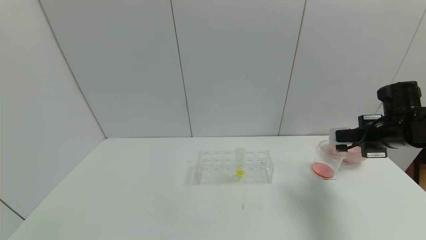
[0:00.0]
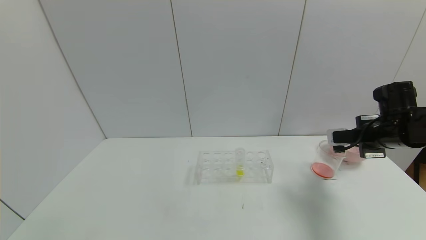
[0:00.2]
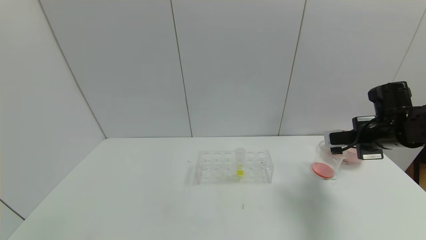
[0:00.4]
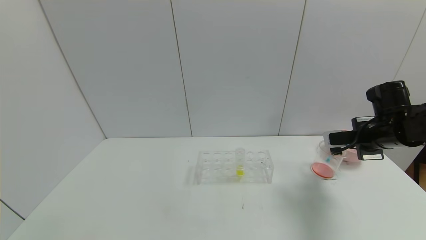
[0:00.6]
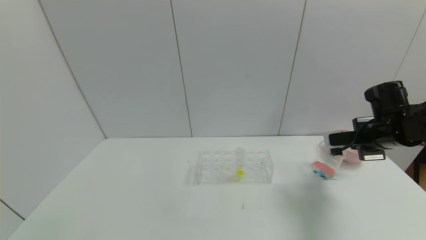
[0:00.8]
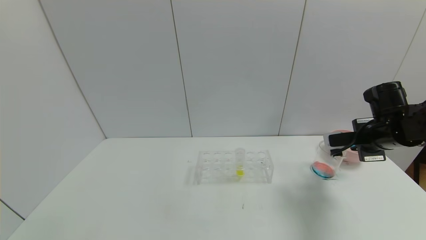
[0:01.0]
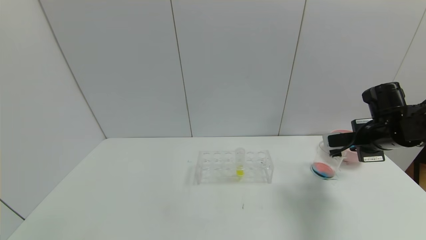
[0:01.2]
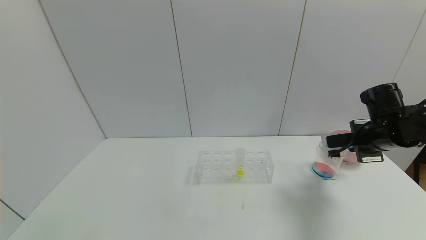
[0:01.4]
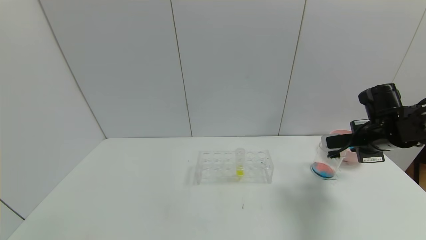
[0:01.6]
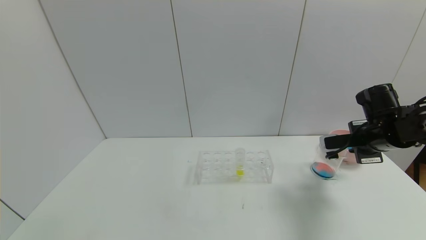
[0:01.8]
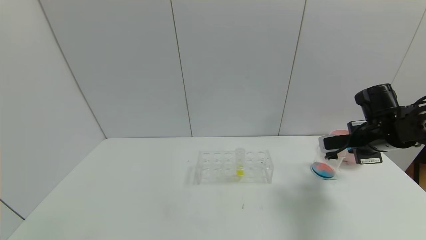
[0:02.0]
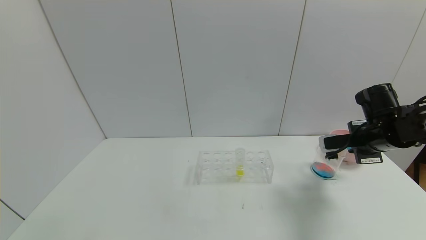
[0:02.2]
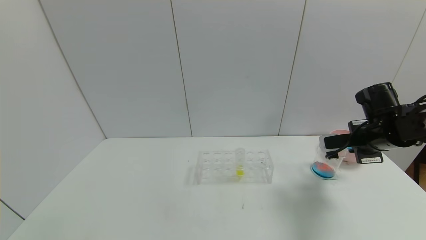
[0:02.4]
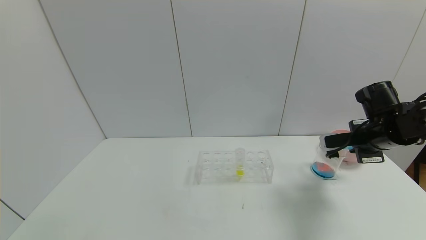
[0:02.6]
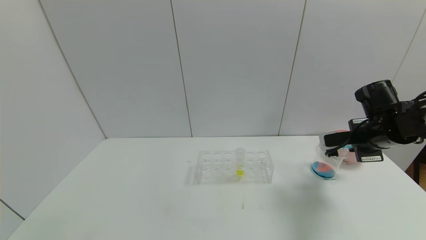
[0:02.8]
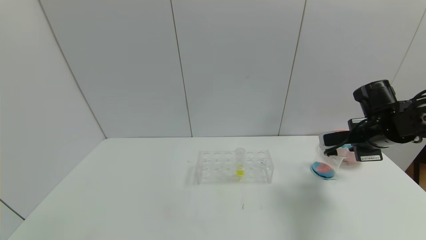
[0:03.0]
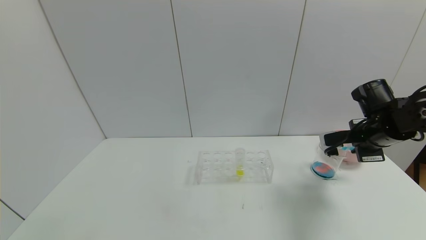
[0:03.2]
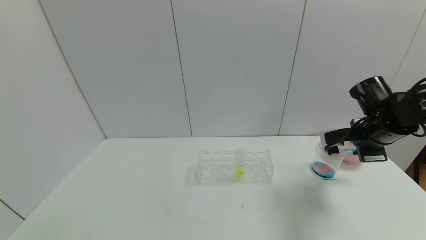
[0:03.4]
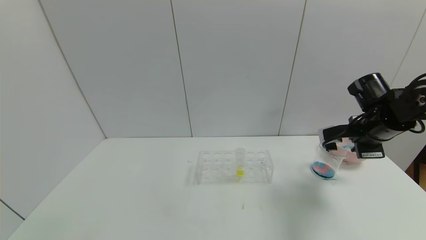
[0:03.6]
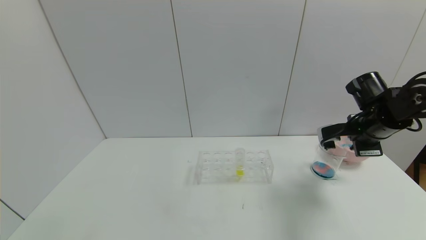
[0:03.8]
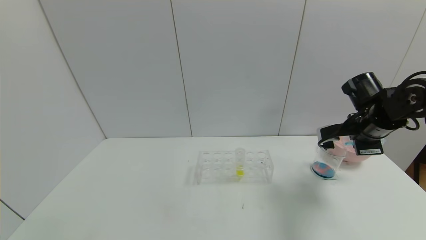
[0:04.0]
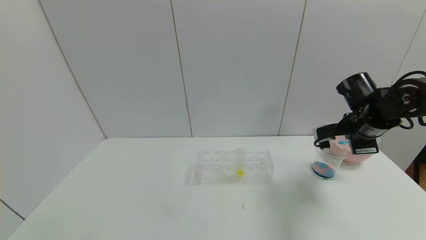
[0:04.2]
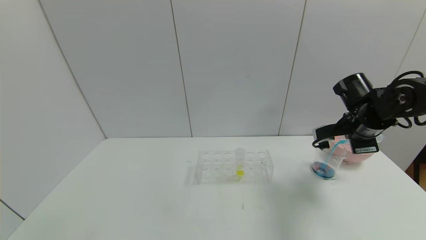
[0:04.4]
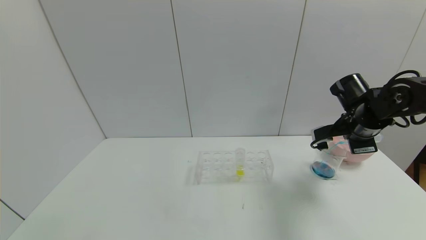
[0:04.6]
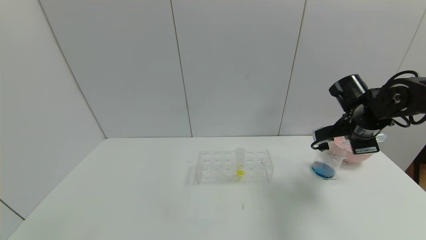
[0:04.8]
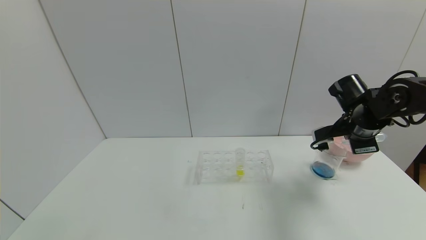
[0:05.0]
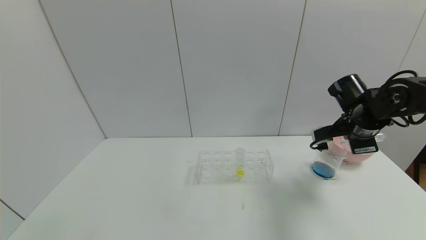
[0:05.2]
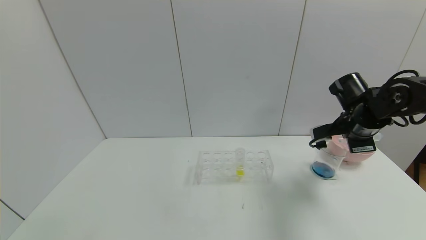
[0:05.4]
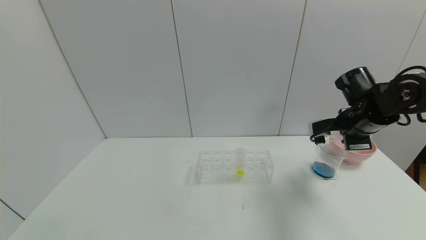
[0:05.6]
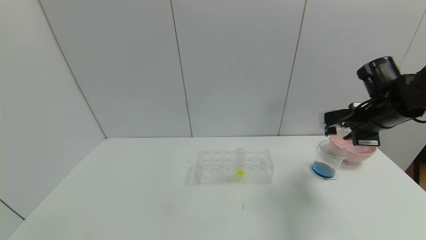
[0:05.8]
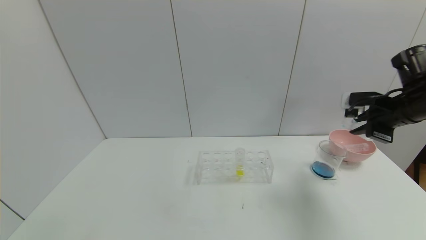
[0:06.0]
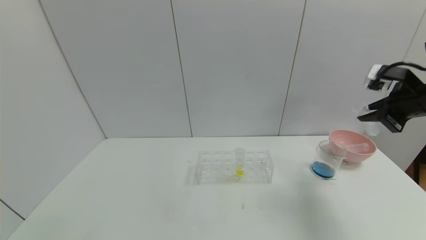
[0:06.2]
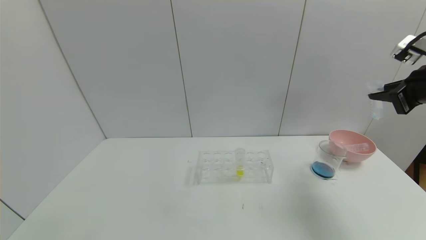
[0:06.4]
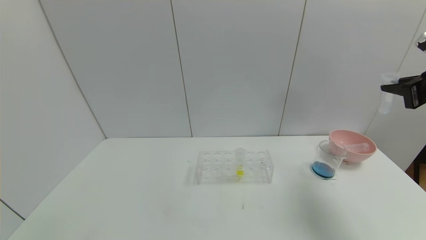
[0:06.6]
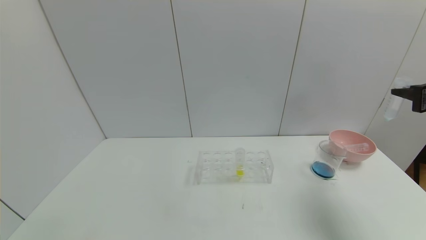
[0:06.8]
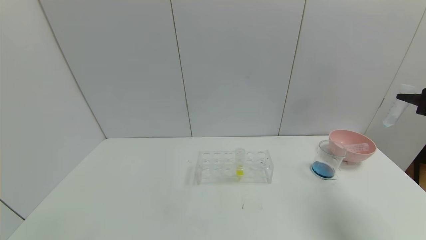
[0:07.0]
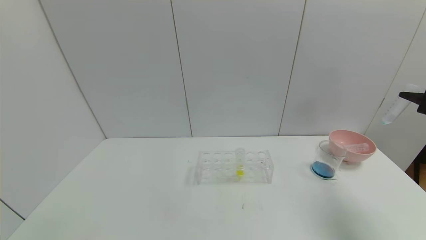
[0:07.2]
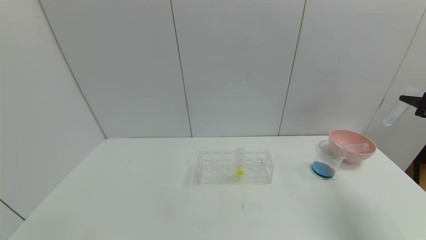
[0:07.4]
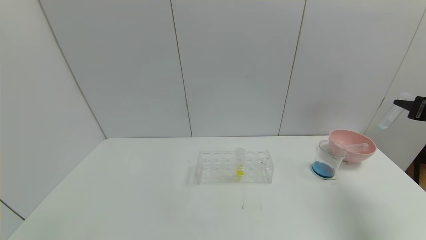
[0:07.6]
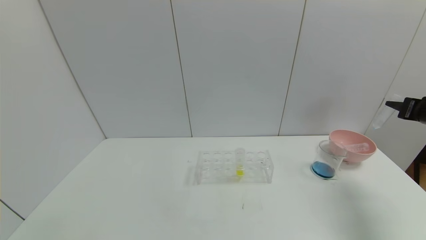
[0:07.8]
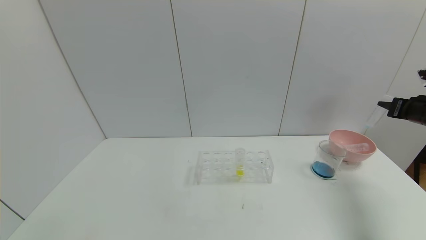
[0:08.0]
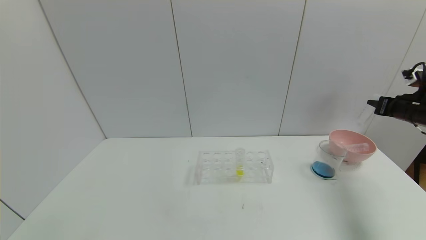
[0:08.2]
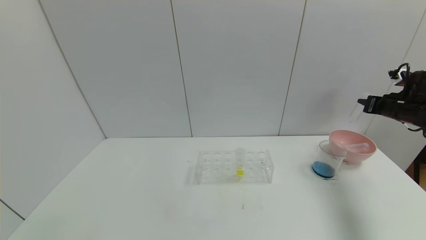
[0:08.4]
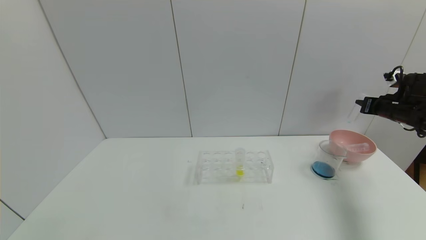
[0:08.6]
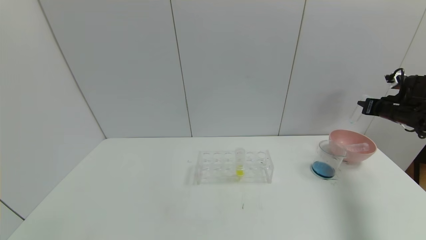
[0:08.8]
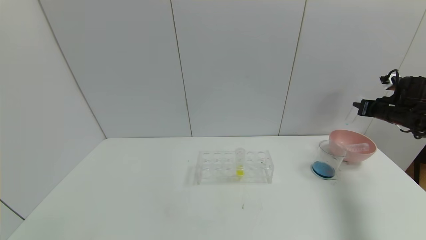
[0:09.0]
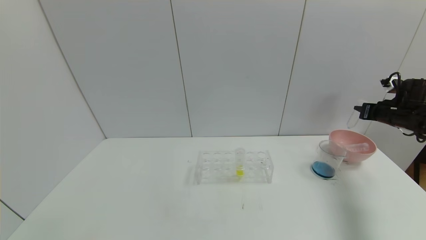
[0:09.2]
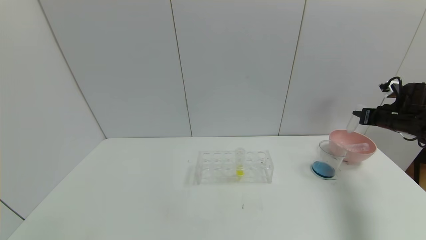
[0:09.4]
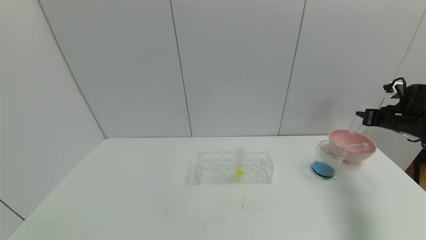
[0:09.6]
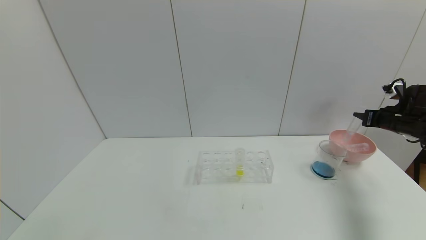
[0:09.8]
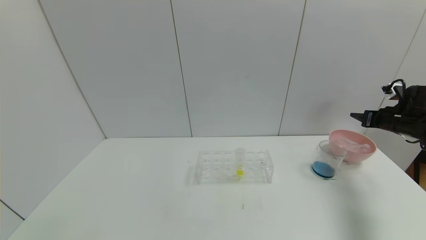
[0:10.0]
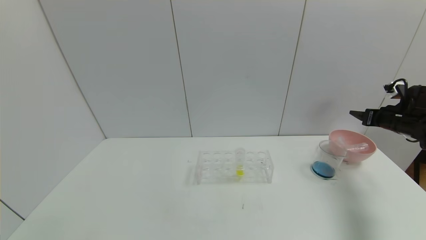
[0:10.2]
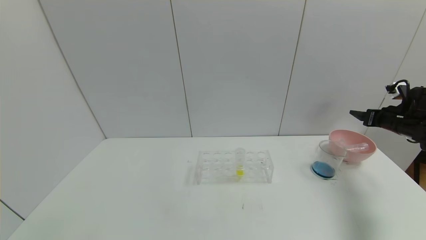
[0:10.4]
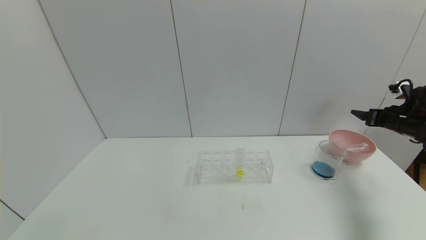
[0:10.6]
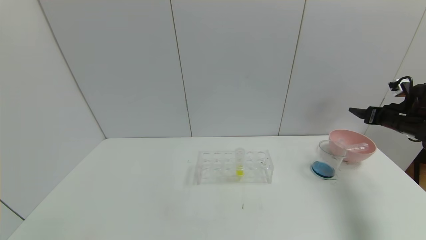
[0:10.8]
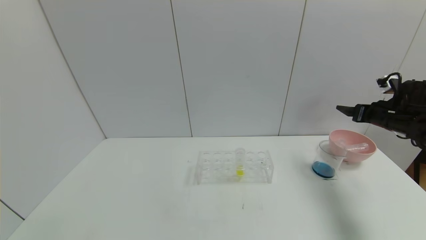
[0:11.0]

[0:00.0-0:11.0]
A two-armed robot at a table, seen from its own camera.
Task of the whole recording: pick up the test tube with red pigment and the test tube with blue pigment by grippers and pour them into the container.
Step, 0:00.0 to 0:05.8: Pour the blue reagent into the graduated cylinder with the right gripper.
Step, 0:06.0 to 0:10.2: Place the test tube into the bowl with the right gripper.
0:00.0 to 0:03.2: The grippers stay close to where they were, moving slightly.
0:03.2 to 0:04.8: The grippers stay close to where they were, moving slightly.
0:04.8 to 0:06.2: The right gripper heads upward, to the right and backward, covering approximately 10 cm.
0:06.2 to 0:07.8: The right gripper shifts some 10 cm to the right and downward.
0:07.8 to 0:09.4: The right gripper travels forward and downward by some 10 cm.
0:09.4 to 0:11.0: The right gripper opens its fingers.

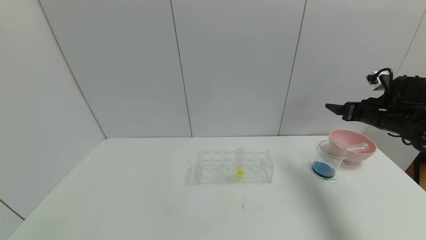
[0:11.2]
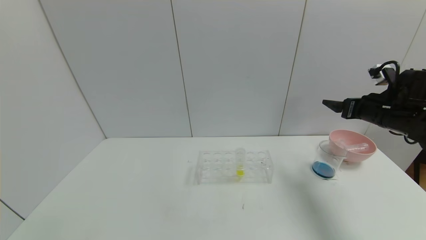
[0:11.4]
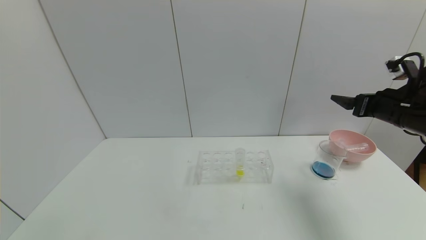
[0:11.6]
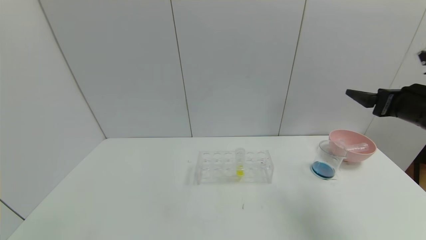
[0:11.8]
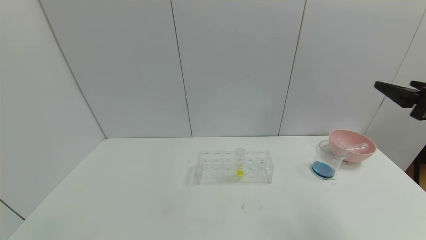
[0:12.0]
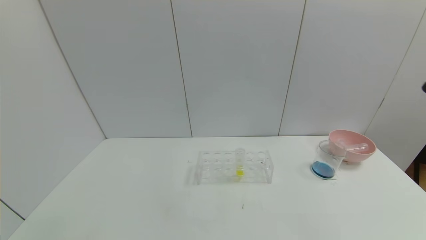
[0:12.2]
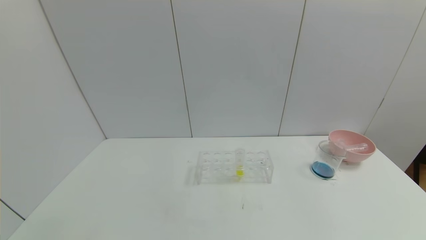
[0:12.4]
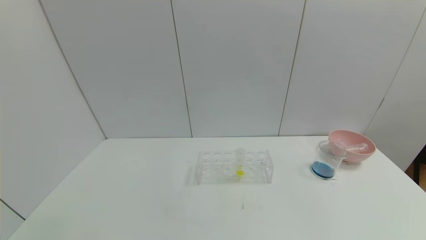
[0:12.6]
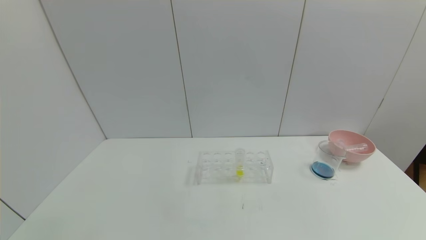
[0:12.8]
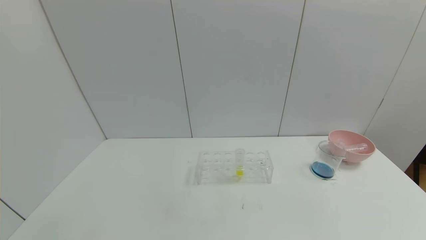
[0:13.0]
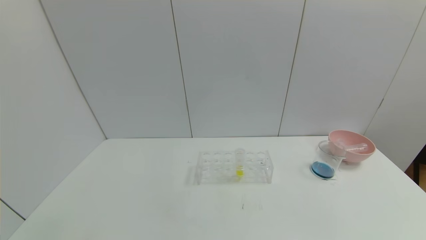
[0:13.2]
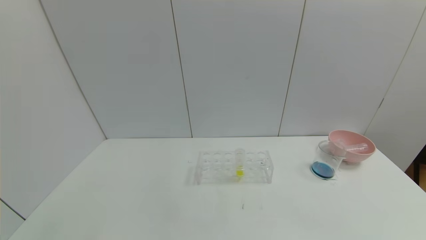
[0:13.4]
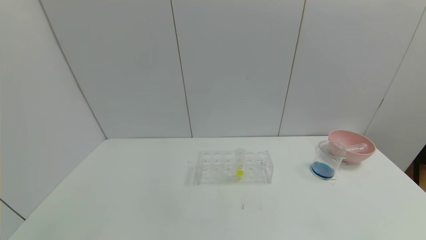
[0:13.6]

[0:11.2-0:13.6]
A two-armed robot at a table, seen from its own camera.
Task of the whole recording: pick up the test tube with red pigment and the test tube with blue pigment by grippers and pour them into the container.
0:11.2 to 0:12.4: The right gripper travels backward by approximately 30 cm.

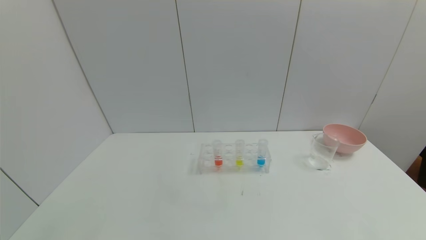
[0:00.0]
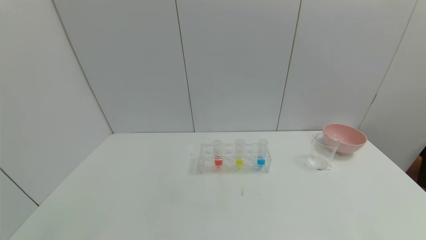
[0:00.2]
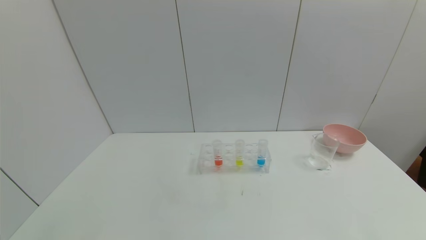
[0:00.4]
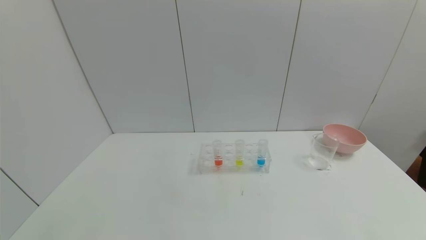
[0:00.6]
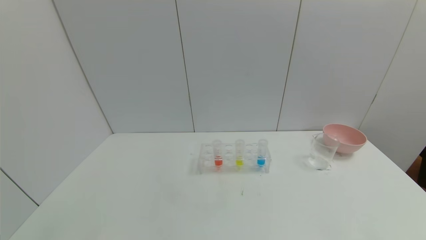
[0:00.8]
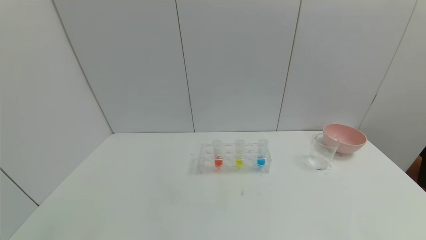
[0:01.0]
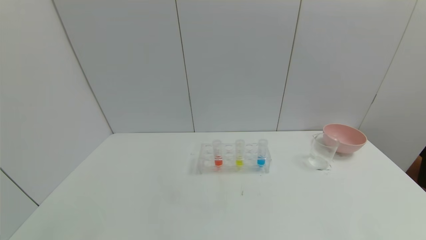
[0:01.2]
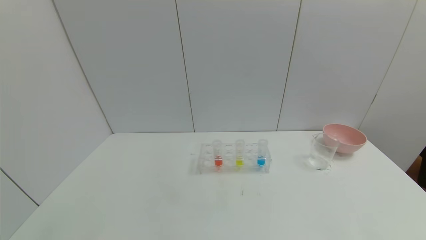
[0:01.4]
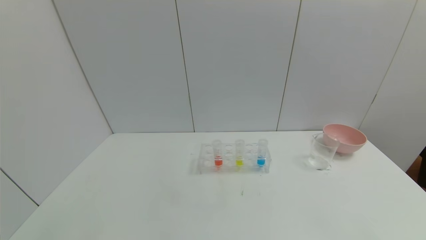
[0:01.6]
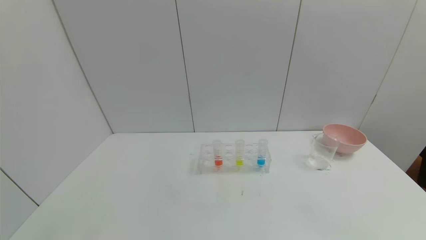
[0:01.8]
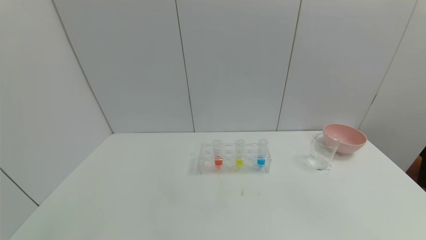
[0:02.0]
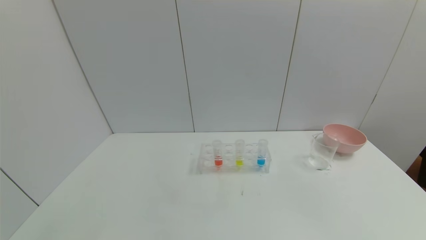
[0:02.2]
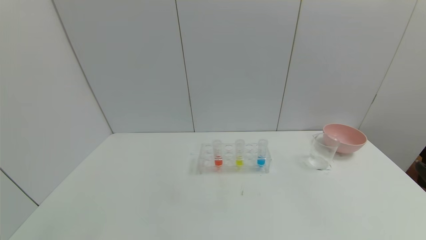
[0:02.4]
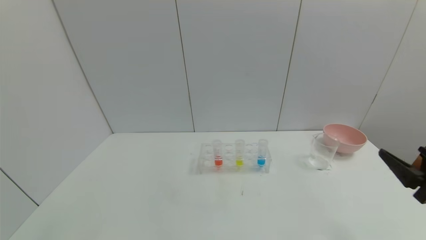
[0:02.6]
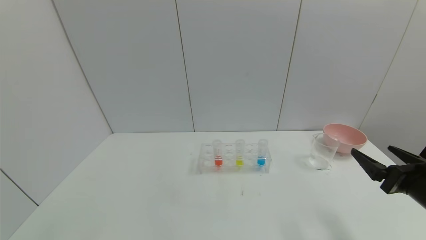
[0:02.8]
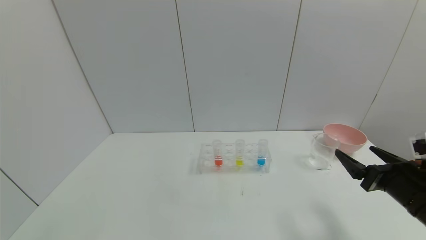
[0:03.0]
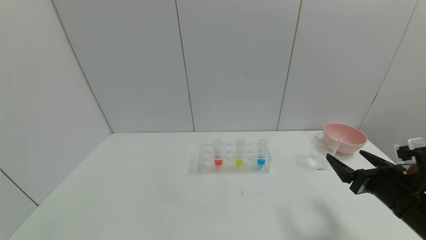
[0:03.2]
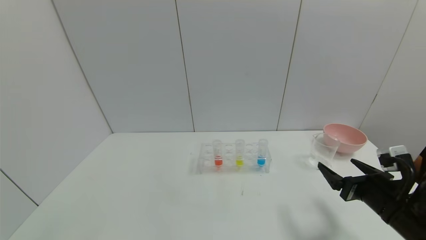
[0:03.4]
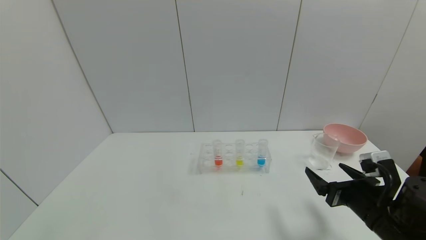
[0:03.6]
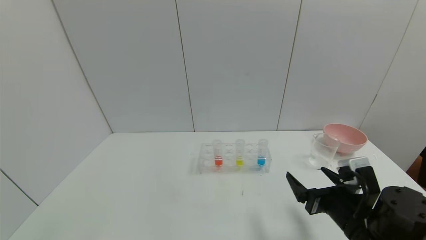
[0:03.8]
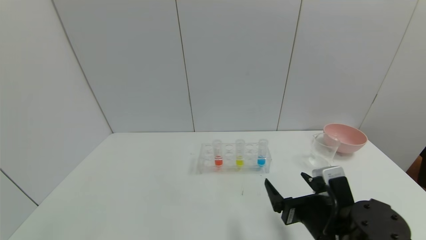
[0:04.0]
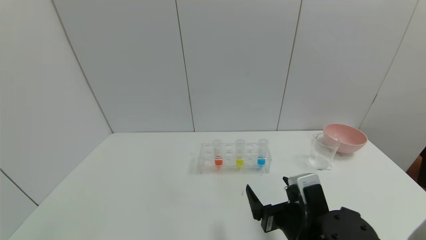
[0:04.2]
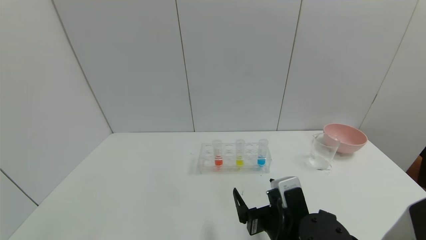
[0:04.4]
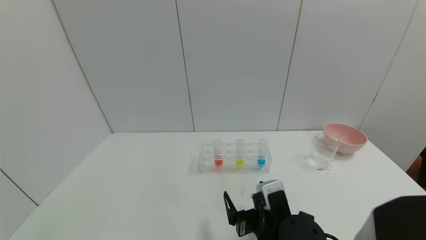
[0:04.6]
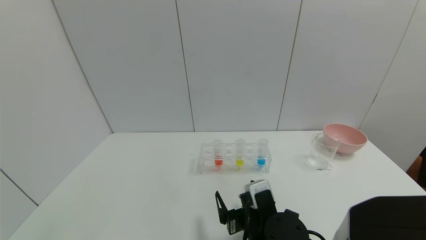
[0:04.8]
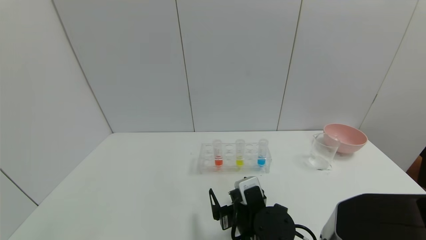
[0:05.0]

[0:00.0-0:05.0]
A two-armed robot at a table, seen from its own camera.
Task of the whole recording: pick up the test tube with red pigment and the test tube with blue pigment by grippers and pour them into the container.
0:01.6 to 0:03.4: The right gripper goes about 25 cm forward.
0:03.4 to 0:05.0: The right gripper moves to the left, approximately 25 cm.
